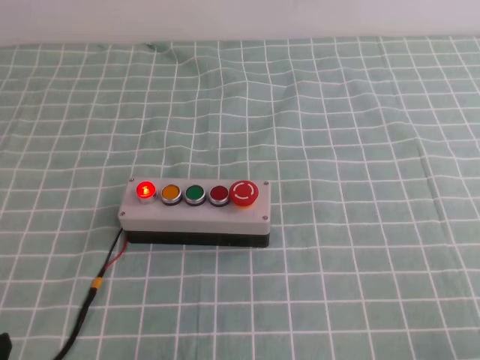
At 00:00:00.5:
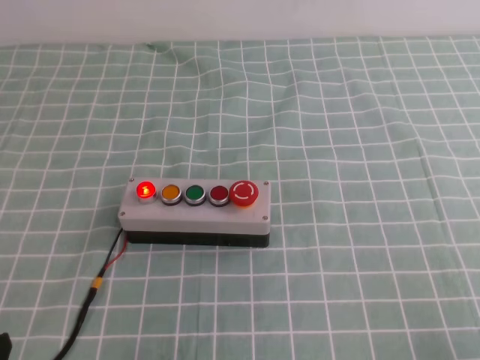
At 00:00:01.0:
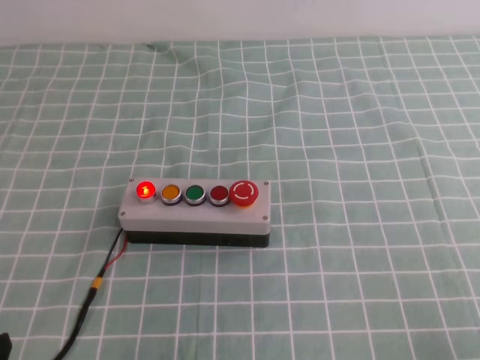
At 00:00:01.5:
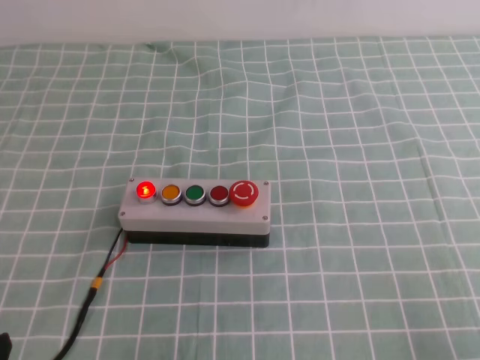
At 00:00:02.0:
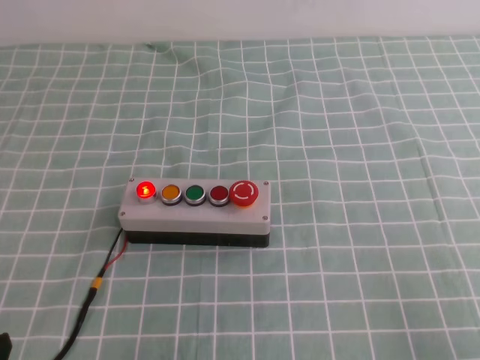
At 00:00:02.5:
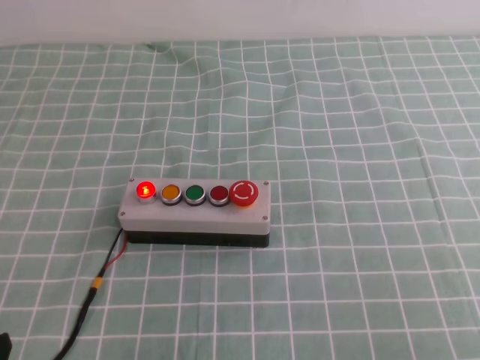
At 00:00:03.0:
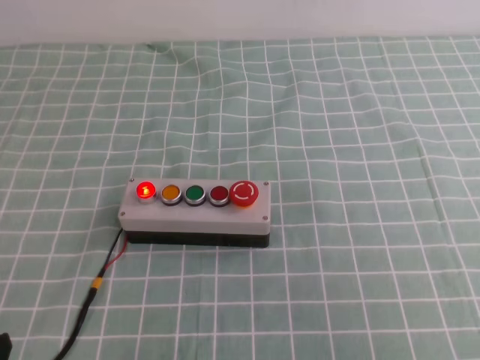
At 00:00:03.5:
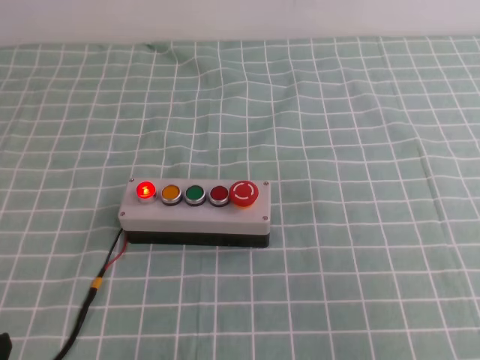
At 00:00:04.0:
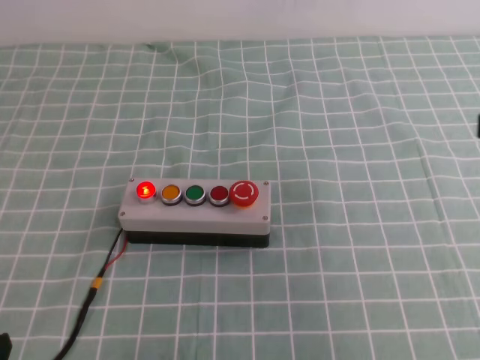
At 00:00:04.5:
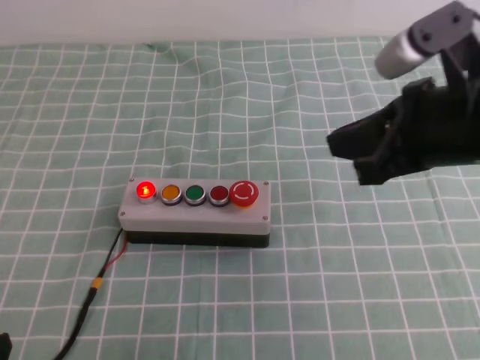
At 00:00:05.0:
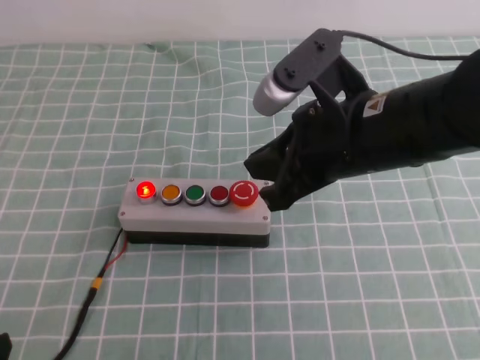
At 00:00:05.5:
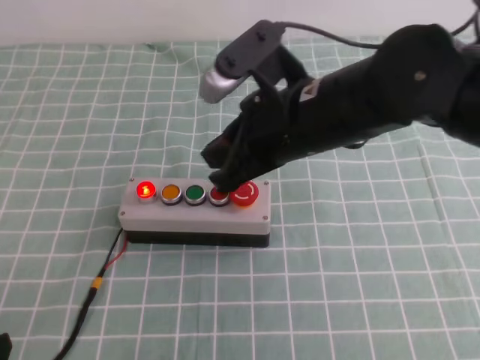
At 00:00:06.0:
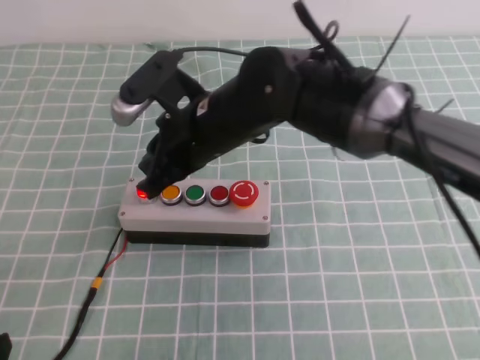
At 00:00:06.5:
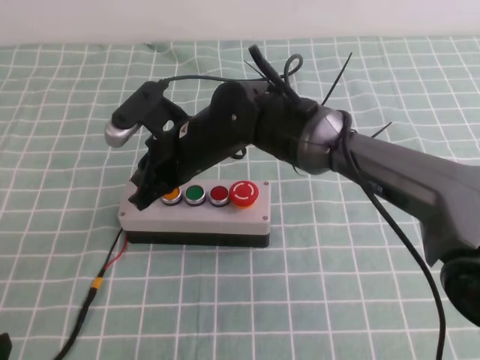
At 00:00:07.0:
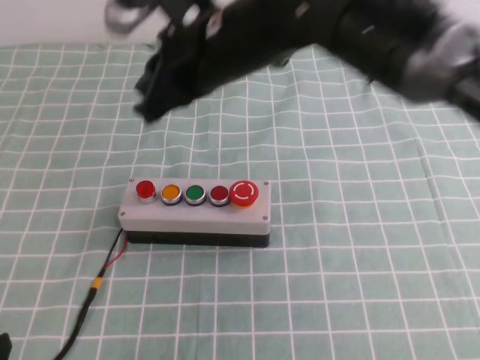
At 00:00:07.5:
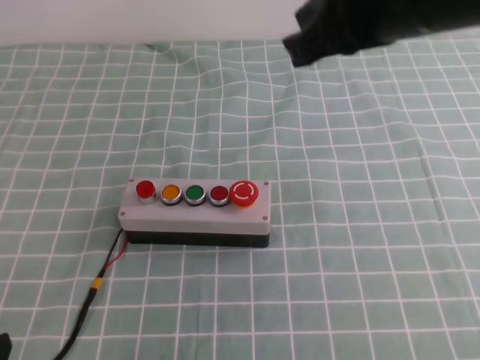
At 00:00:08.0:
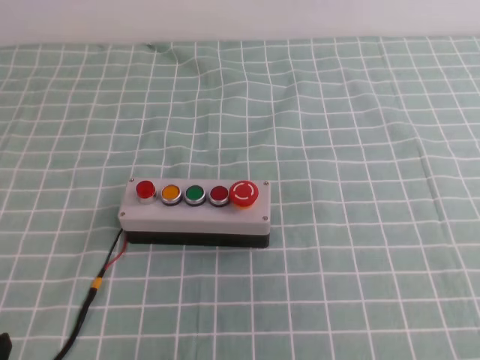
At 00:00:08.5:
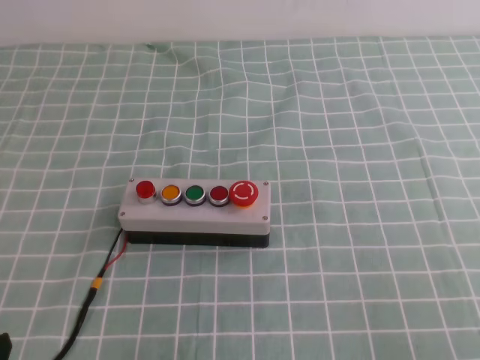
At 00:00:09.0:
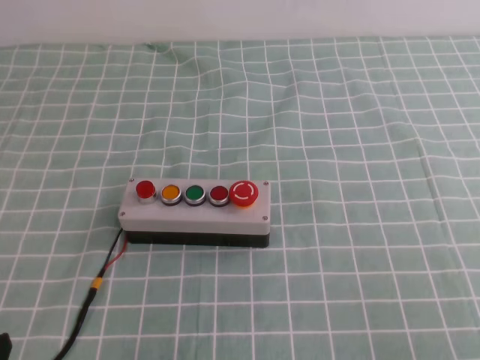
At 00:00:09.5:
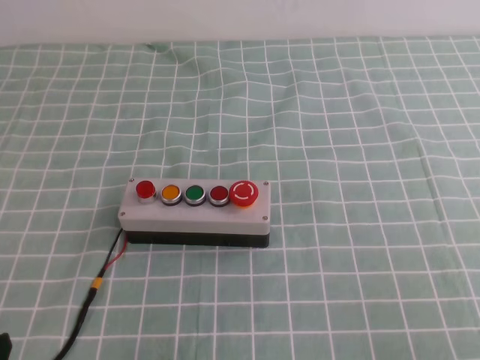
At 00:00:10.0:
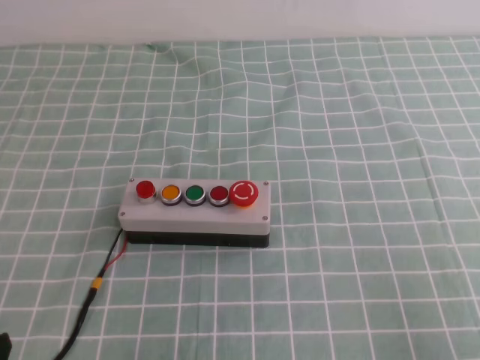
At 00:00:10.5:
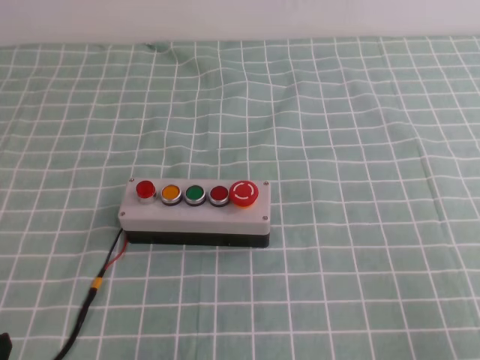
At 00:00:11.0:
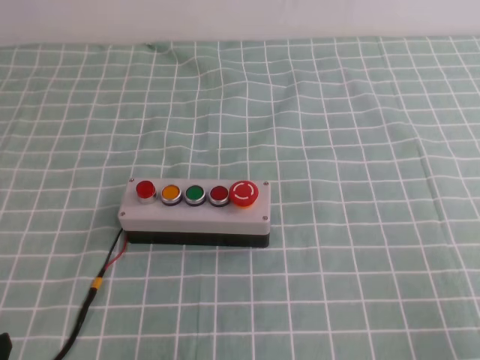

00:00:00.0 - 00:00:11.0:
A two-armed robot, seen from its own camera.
Task of the whole recording: press the button switch on the cyan tablecloth with the right gripper to turn off the button.
00:00:03.5 - 00:00:05.5: The right gripper shifts approximately 30 cm to the left and forward.
00:00:05.5 - 00:00:07.5: The right gripper goes about 15 cm upward and to the right.
00:00:07.5 - 00:00:09.0: The right gripper shifts approximately 35 cm to the right, backward and downward.
